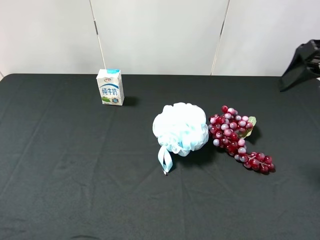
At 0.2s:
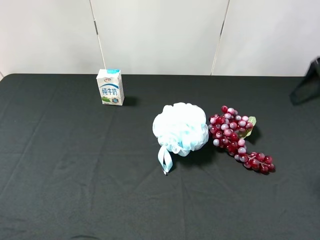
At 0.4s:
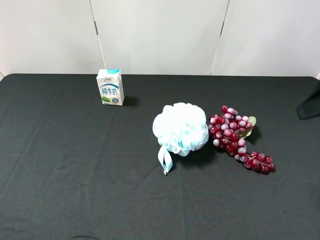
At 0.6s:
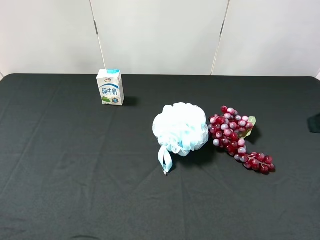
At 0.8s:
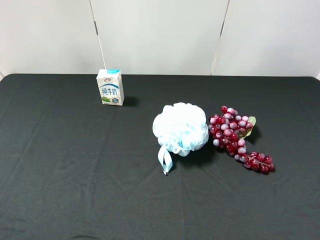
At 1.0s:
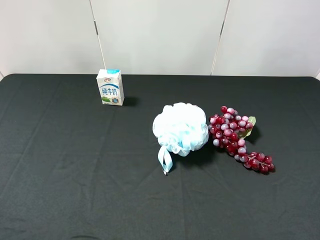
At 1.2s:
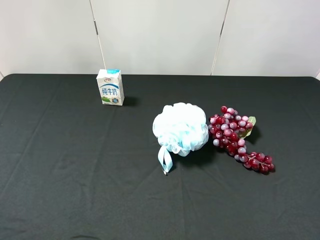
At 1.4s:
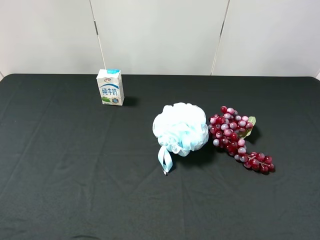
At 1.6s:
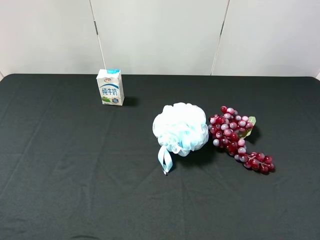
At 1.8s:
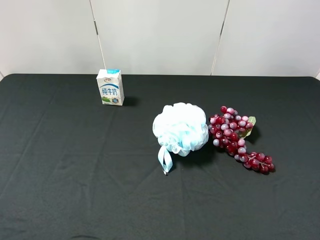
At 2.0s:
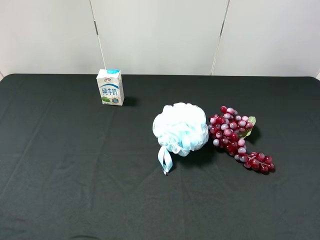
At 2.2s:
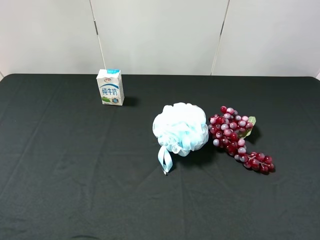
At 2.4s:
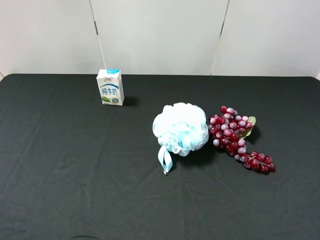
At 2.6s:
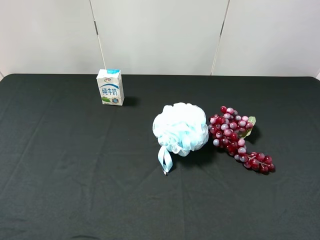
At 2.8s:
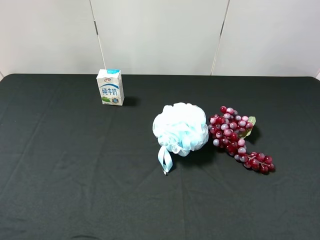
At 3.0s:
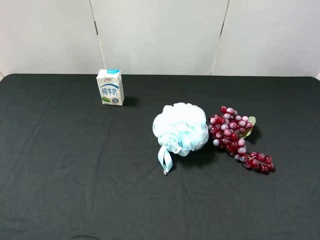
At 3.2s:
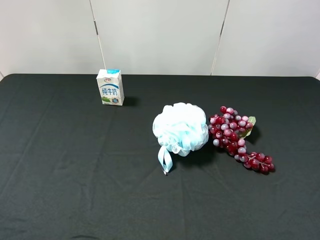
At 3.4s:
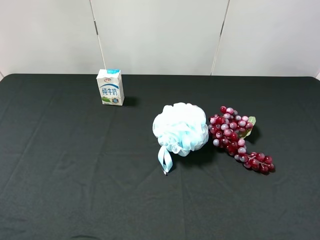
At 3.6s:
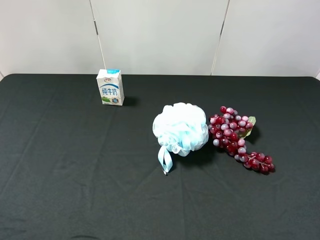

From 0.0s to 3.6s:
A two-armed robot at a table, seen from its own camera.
Task of the whole recording: use the left gripper to pick up the item and transfer it from the left gripper to the right gripper.
From 0.0s to 1.8s: The right gripper heads backward, covering approximately 25 cm.
From 1.8s to 3.6s: Both grippers stay put.

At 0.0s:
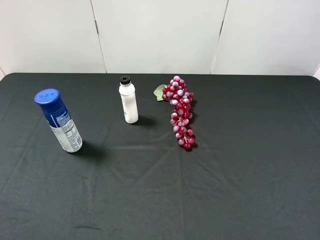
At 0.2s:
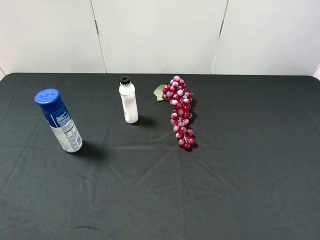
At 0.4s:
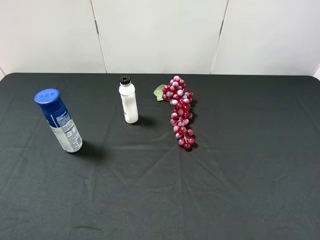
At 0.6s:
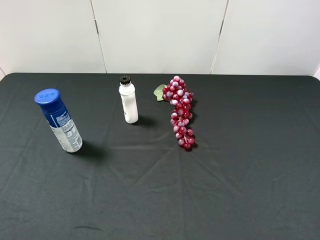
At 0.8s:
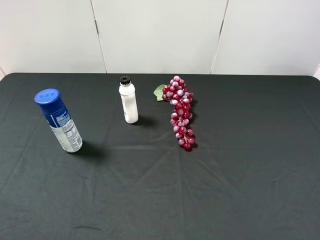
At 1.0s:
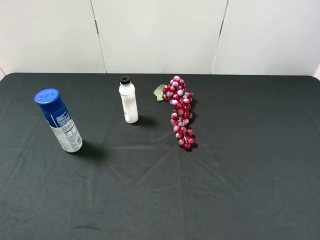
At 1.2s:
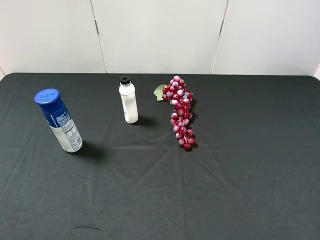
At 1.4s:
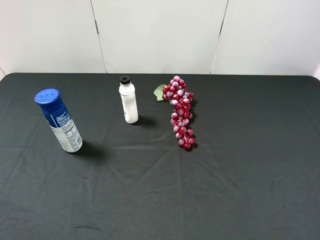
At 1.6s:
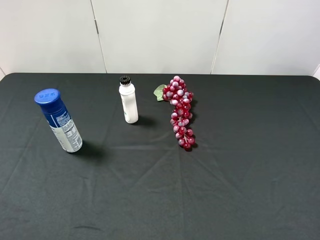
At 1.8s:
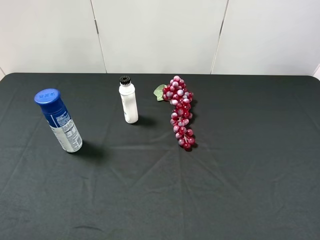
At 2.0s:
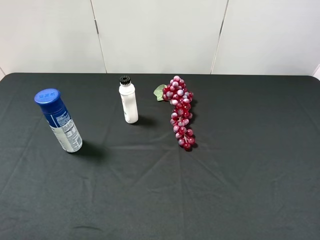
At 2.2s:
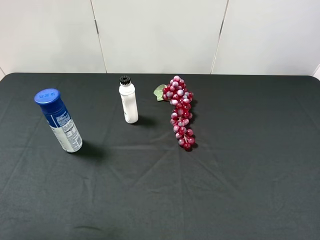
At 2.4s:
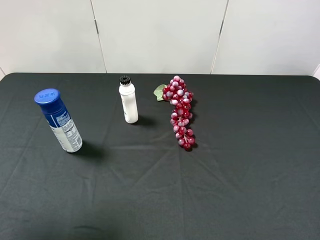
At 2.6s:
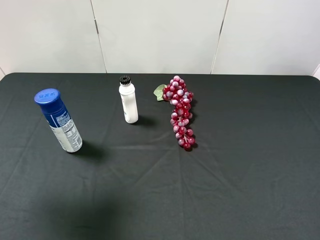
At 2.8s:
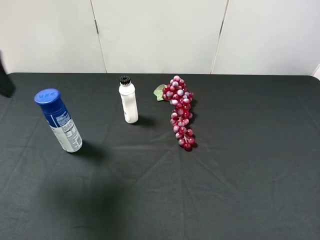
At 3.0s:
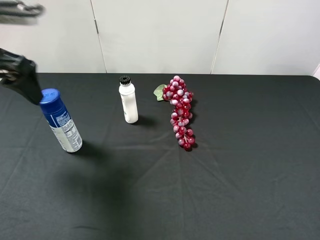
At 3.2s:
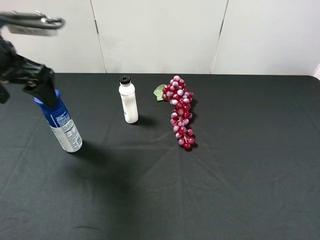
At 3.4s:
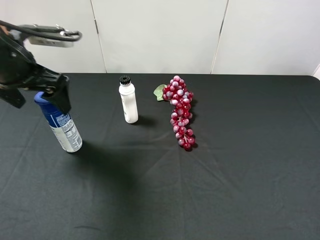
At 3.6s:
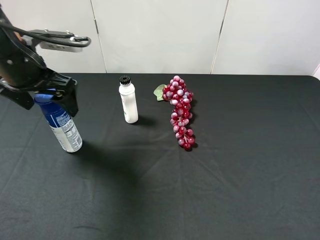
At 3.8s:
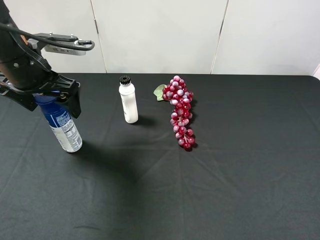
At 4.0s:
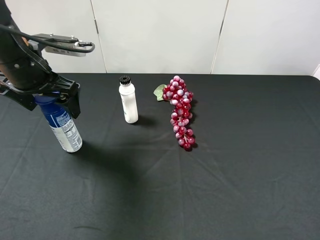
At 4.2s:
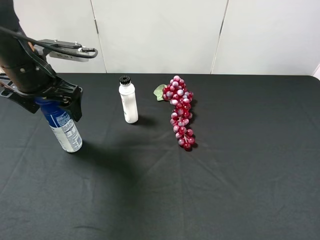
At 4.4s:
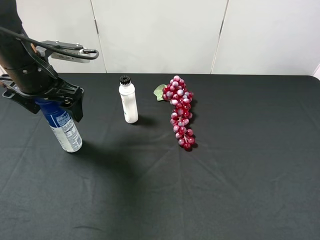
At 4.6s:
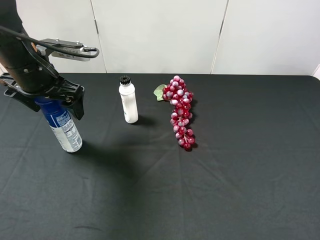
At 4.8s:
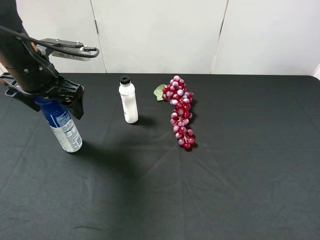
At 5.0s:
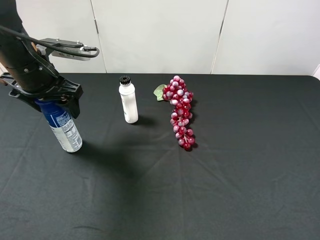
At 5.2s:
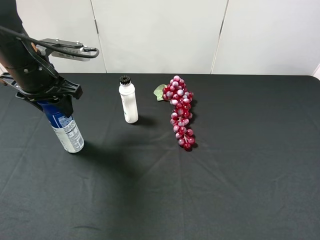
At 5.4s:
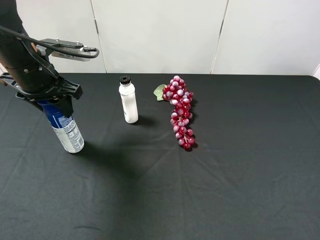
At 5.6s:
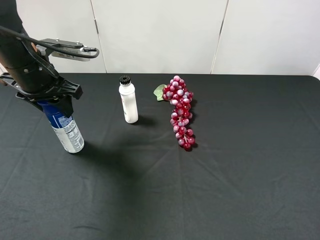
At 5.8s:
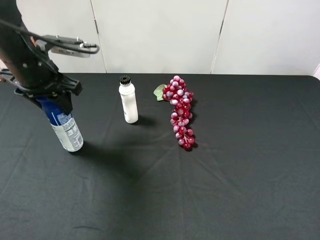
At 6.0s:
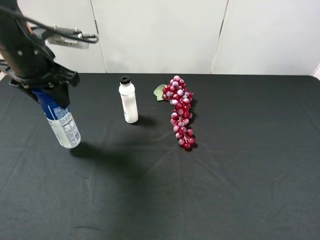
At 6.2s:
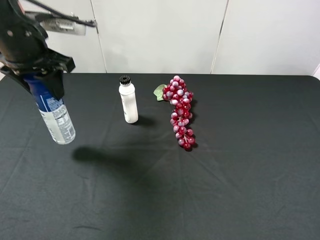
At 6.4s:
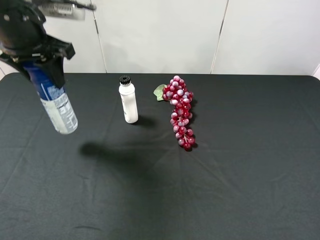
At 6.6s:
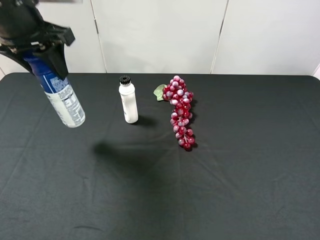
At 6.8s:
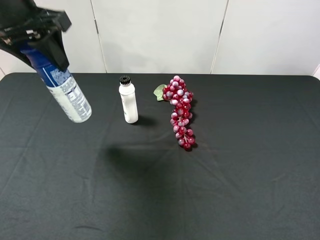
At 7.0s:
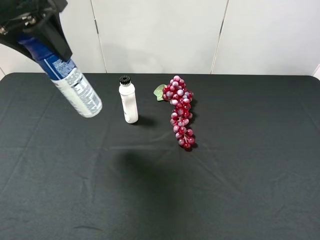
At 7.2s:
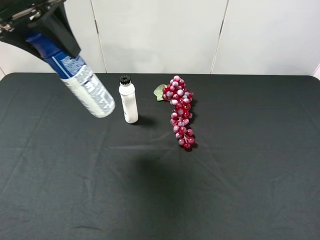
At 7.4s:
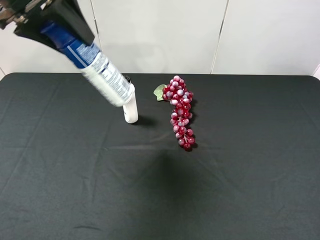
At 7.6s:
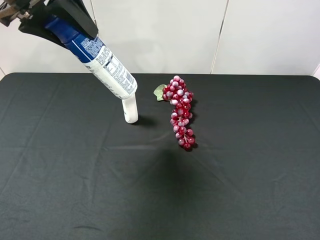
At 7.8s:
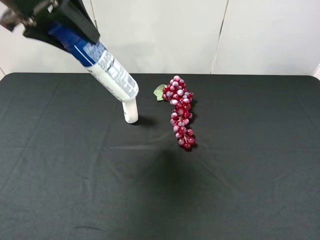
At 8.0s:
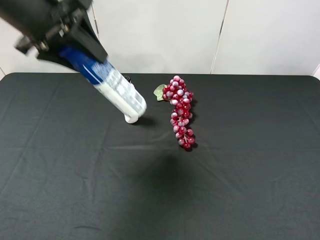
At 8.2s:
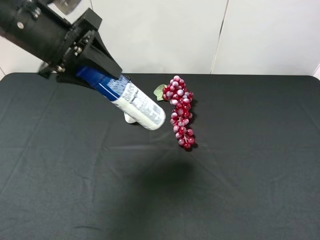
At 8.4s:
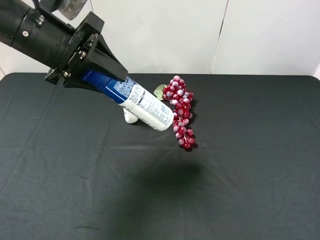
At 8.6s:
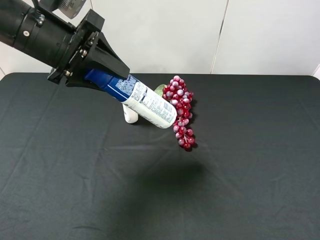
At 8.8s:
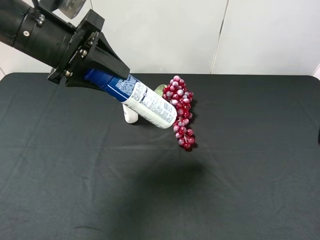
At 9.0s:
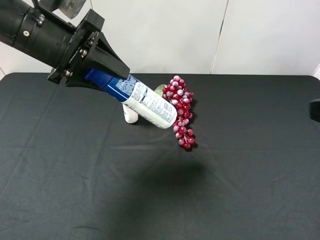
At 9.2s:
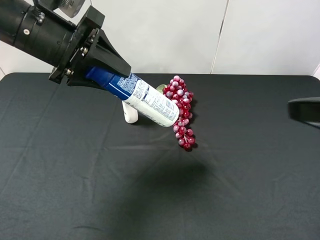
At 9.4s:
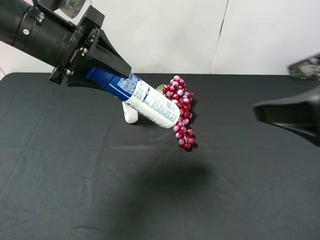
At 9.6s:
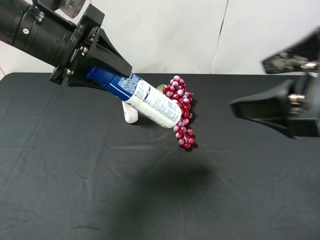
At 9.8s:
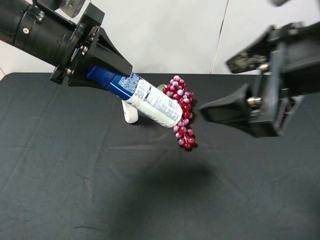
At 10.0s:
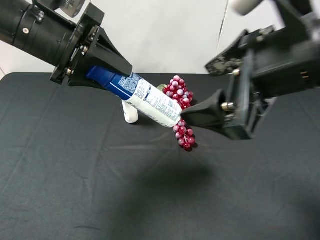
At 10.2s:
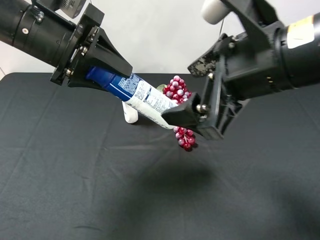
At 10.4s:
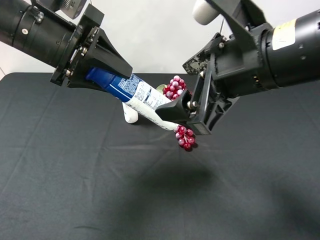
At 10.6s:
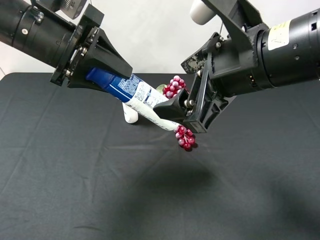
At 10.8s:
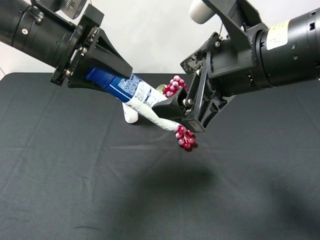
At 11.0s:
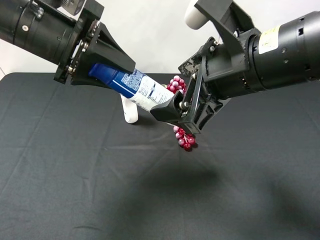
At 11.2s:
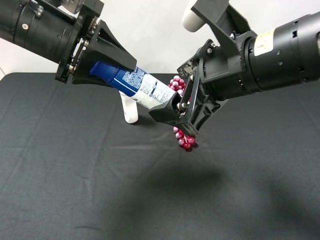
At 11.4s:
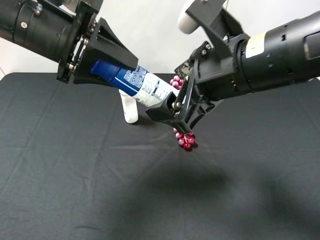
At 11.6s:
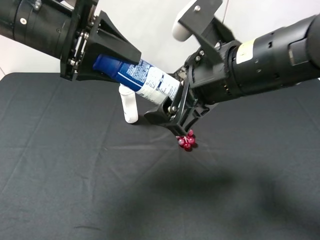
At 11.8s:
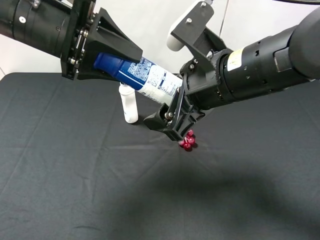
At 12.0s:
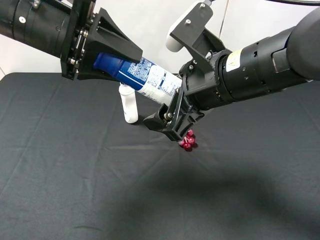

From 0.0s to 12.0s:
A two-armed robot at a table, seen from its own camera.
Task of the whole recording: use the left gripper to pick up the item and transfer it from the left gripper to the right gripper.
From 1.6s to 3.0s: The left gripper moves forward, some 25 cm.
From 3.0s to 4.4s: The left gripper travels downward by approximately 5 cm.
From 4.4s to 6.0s: The left gripper closes up.
From 6.0s to 7.6s: The left gripper is displaced upward by roughly 10 cm.
From 7.6s to 9.0s: The right gripper goes approximately 10 cm forward and upward, while the left gripper heads downward, covering approximately 10 cm.
From 9.0s to 10.4s: The right gripper goes roughly 20 cm to the left and forward.

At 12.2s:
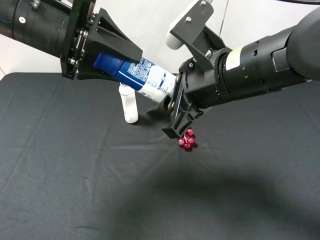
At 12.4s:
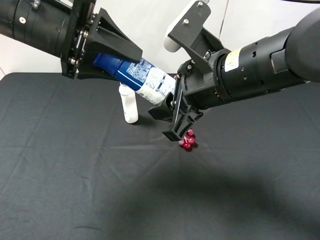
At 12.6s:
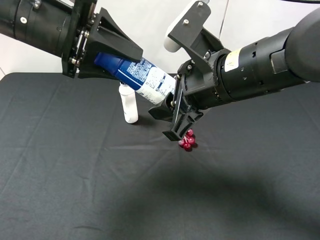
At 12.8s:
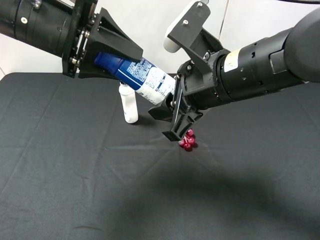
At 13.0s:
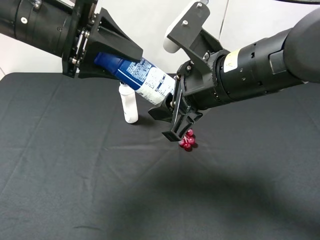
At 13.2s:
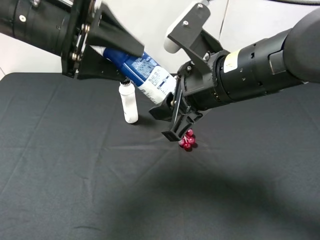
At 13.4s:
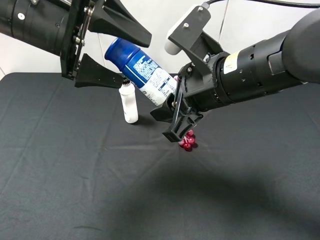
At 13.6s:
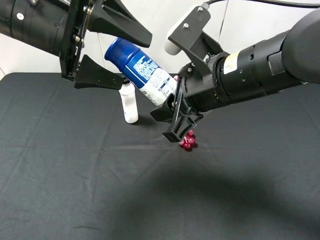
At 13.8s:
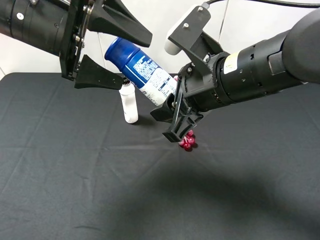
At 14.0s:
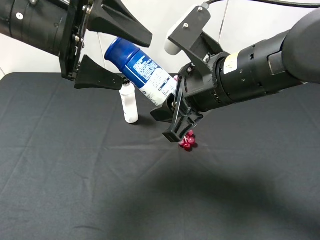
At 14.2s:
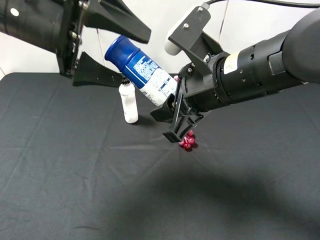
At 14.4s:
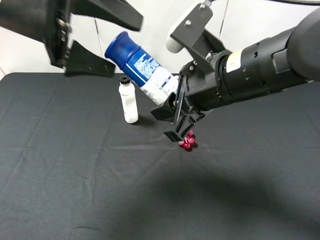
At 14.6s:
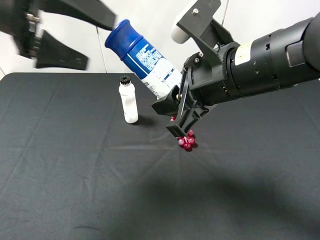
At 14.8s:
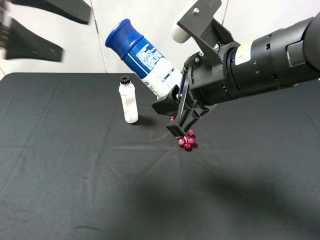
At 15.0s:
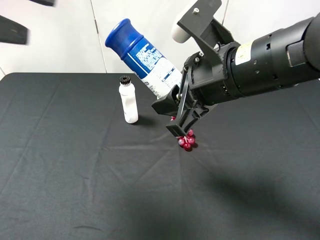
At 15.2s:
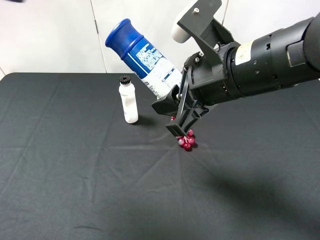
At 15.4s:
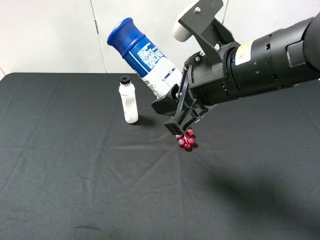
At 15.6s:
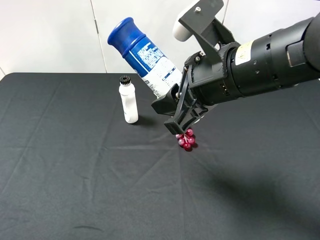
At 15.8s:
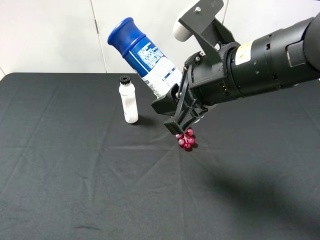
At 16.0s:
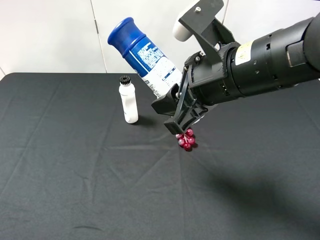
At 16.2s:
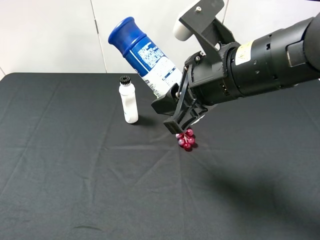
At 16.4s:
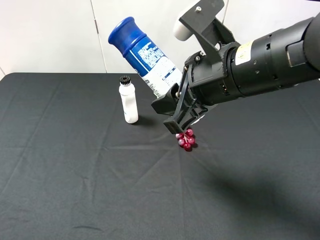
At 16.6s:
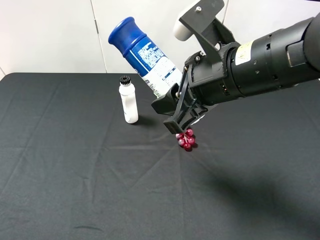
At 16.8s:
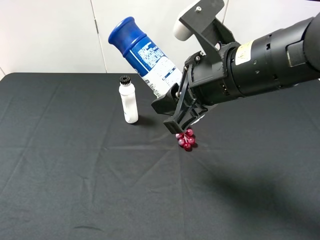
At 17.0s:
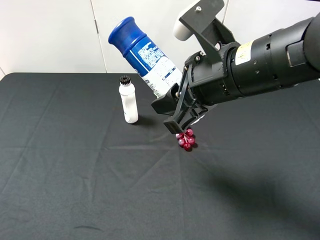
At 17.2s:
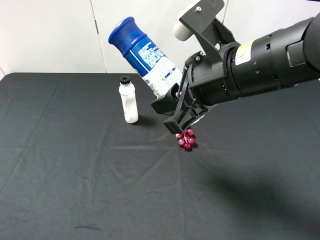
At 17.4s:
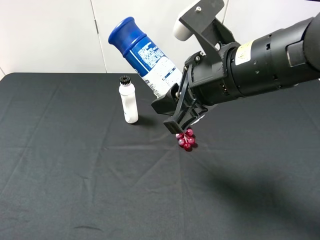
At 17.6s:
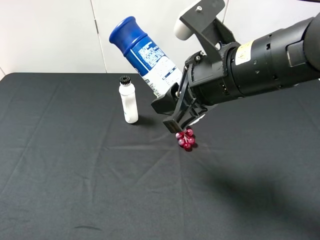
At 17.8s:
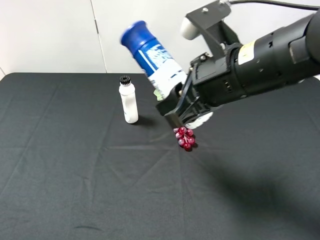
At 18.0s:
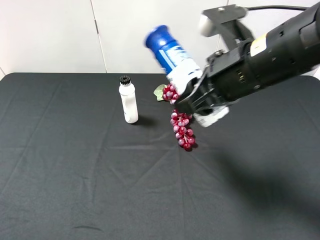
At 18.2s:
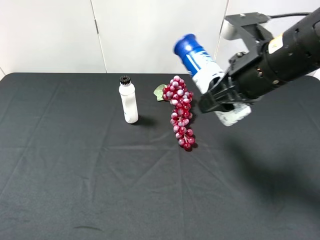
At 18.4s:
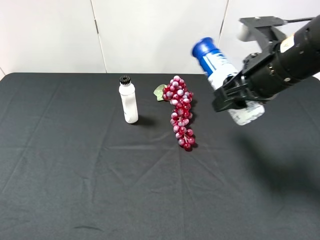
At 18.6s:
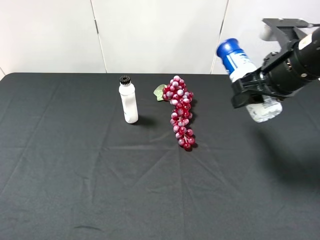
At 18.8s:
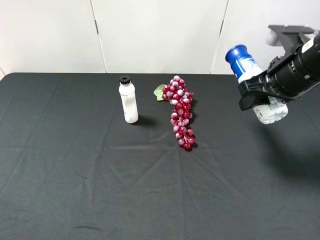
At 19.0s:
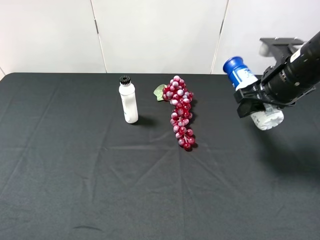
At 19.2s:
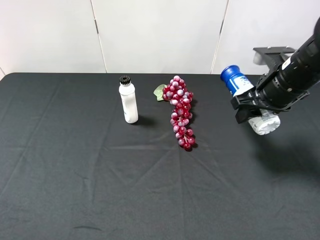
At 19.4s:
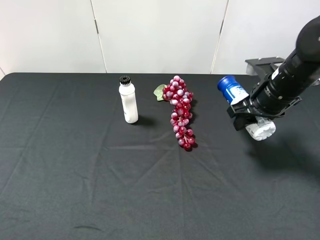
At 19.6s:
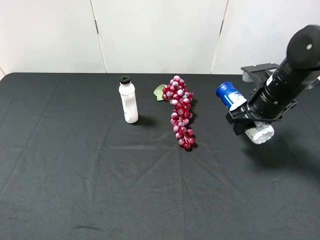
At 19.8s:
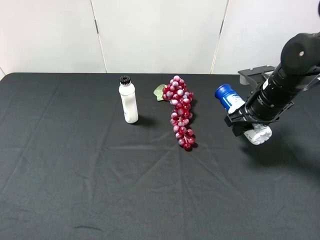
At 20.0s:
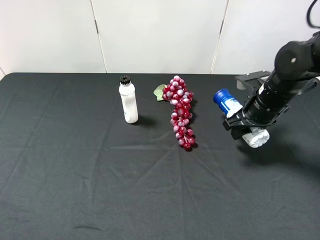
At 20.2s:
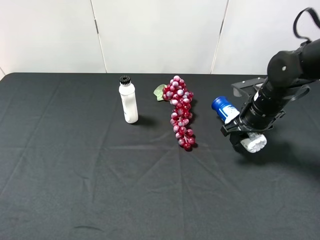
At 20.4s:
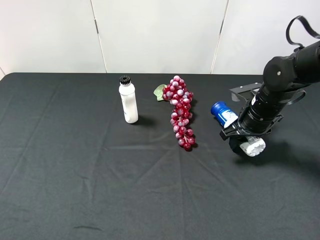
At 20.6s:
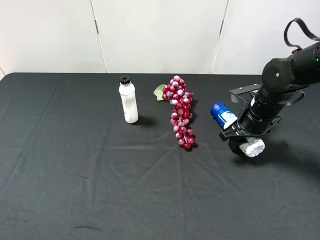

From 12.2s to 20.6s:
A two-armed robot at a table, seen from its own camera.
Task of the whole recording: use the left gripper to pick up the item and transfer it from the left gripper to the right gripper.
From 12.2s to 13.6s: The left gripper opens its fingers.
From 13.6s to 15.0s: The left gripper heads upward, to the left and backward, covering approximately 15 cm.
From 15.0s to 16.4s: The left gripper shifts roughly 20 cm backward.
From 16.4s to 17.8s: The left gripper goes about 5 cm downward.
From 17.8s to 19.2s: The right gripper travels to the right, forward and downward by about 15 cm.
From 19.2s to 20.6s: The right gripper travels downward by roughly 10 cm.
